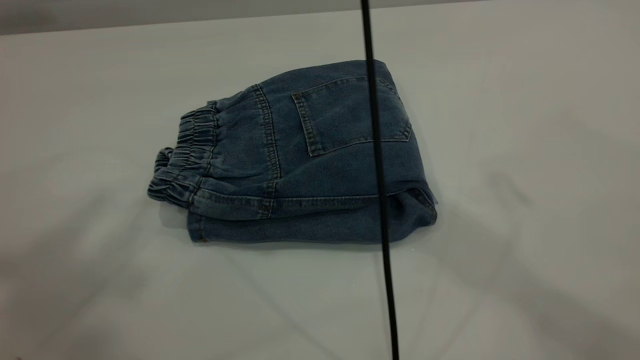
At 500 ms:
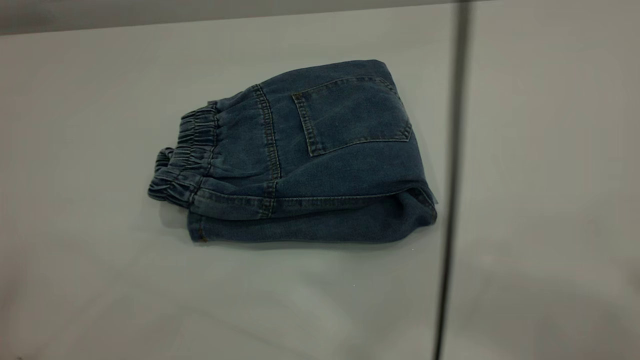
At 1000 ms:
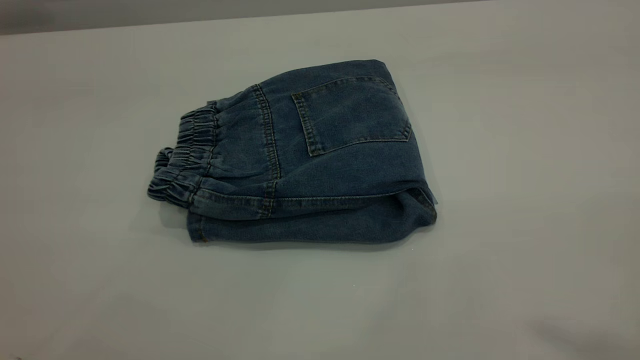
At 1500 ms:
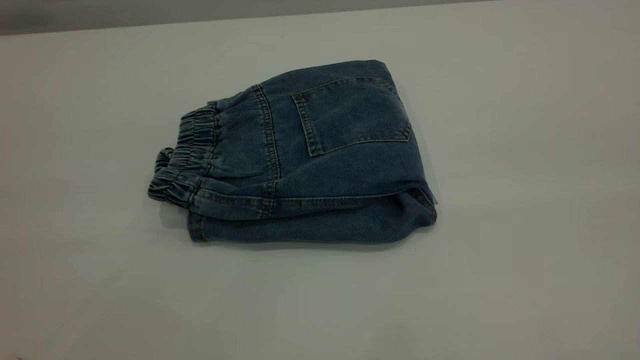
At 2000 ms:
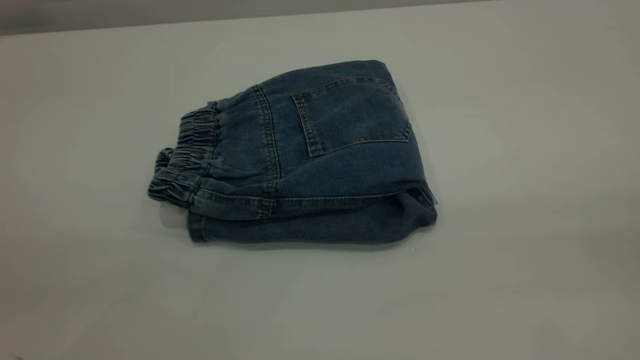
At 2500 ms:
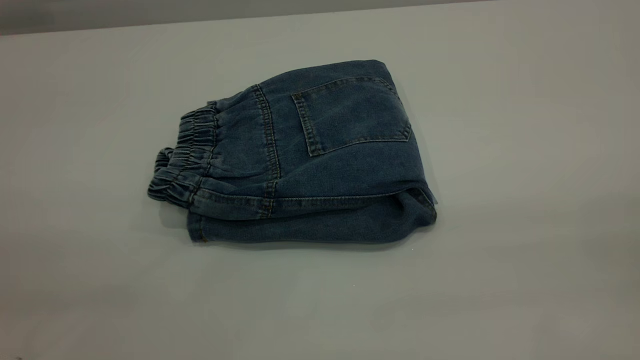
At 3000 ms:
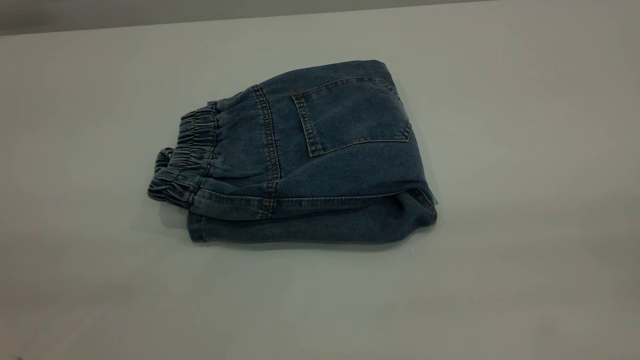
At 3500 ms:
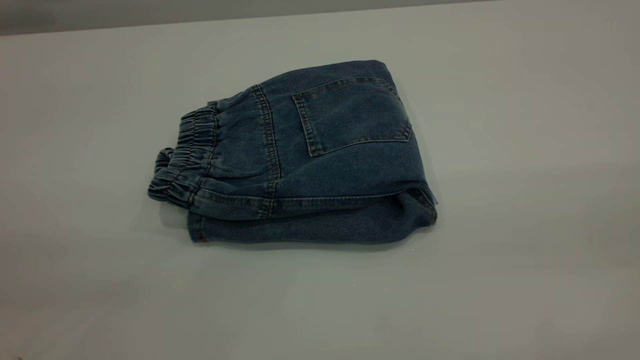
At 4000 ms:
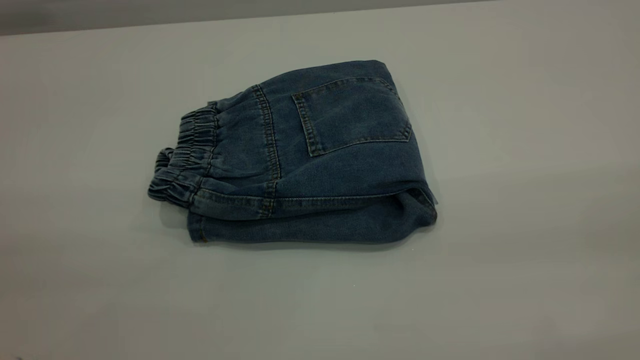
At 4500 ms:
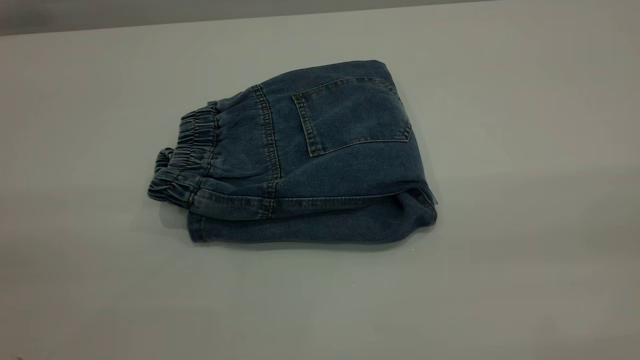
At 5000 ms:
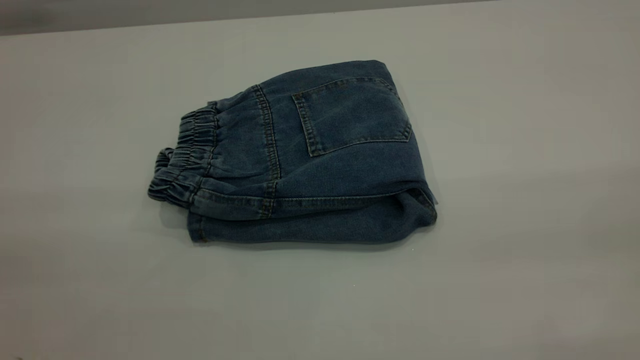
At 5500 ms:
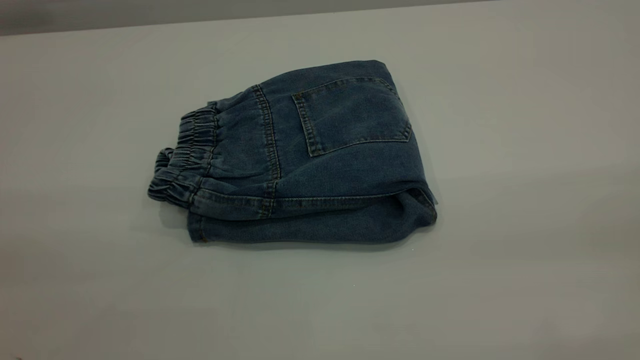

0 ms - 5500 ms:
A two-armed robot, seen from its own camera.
0 ms - 2000 ms: The right gripper shifts some 40 cm backward and to the right. The left gripper is displaced backward and downward by some 25 cm.
